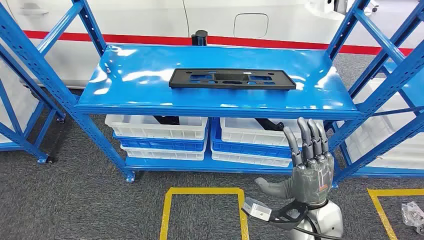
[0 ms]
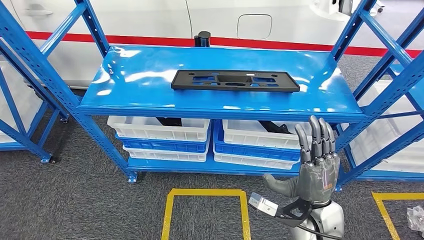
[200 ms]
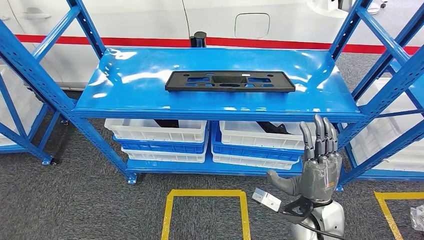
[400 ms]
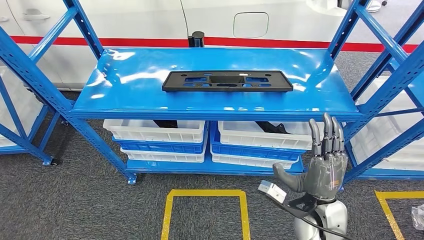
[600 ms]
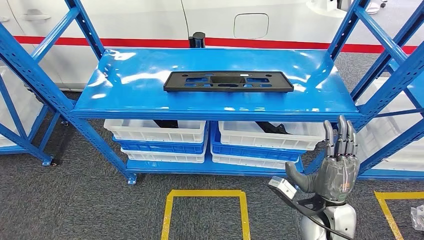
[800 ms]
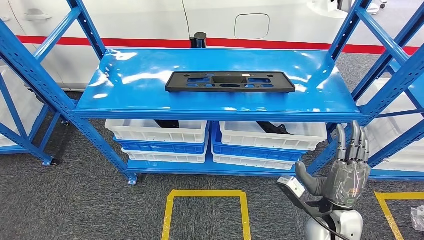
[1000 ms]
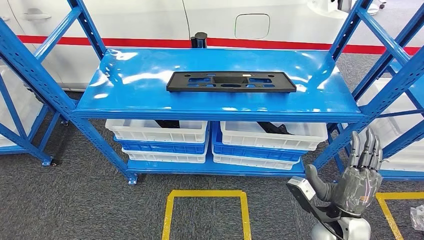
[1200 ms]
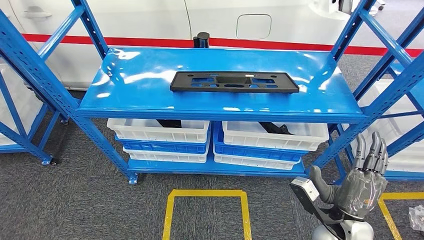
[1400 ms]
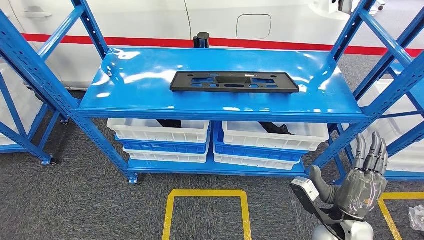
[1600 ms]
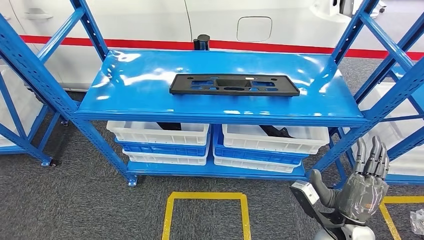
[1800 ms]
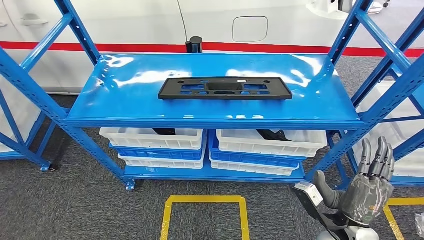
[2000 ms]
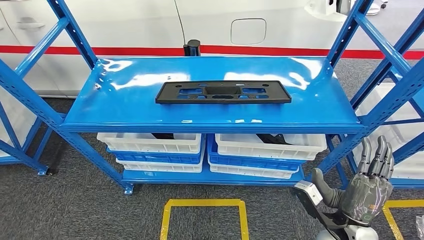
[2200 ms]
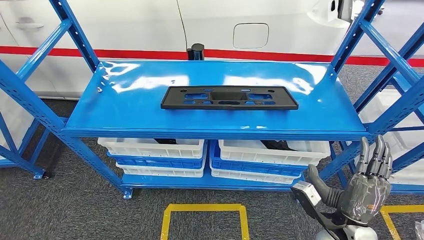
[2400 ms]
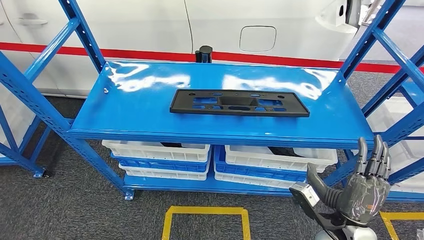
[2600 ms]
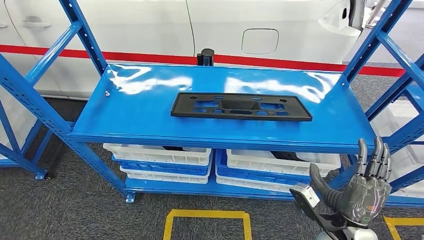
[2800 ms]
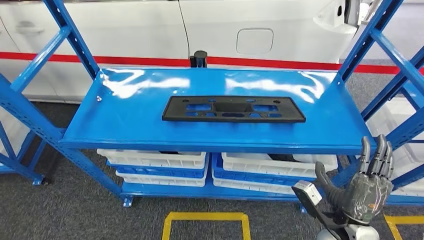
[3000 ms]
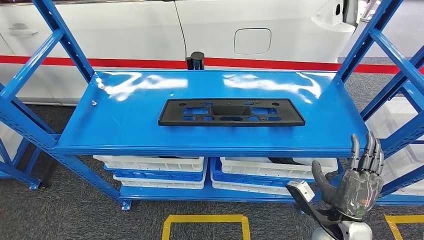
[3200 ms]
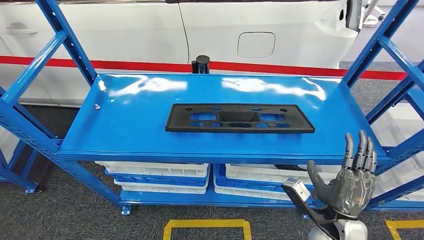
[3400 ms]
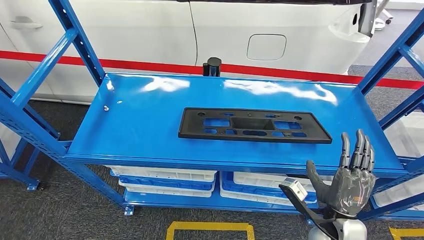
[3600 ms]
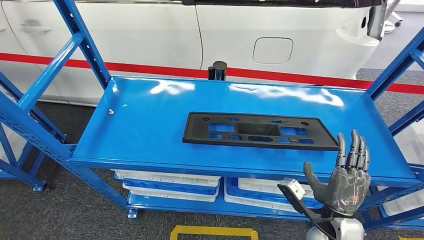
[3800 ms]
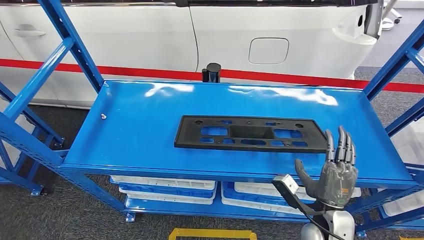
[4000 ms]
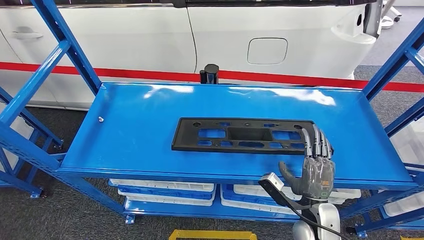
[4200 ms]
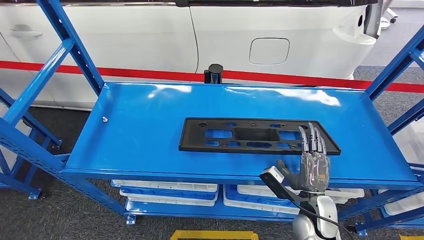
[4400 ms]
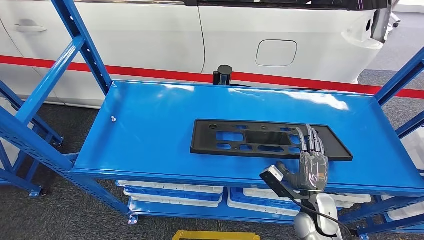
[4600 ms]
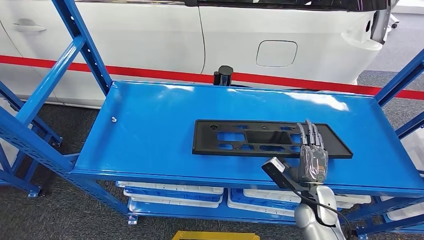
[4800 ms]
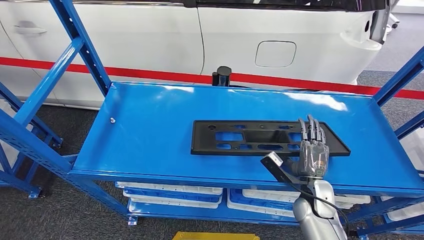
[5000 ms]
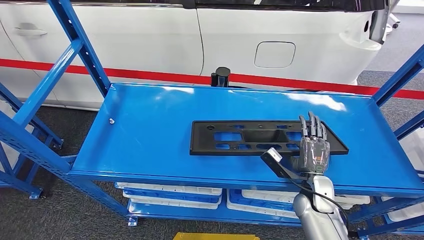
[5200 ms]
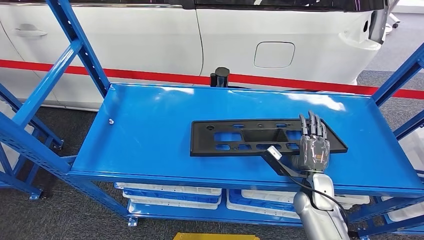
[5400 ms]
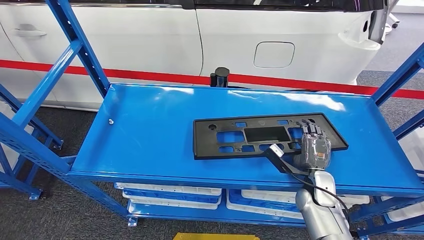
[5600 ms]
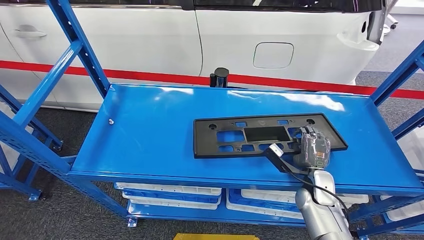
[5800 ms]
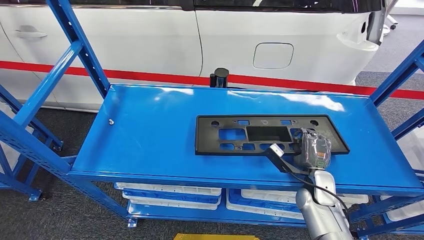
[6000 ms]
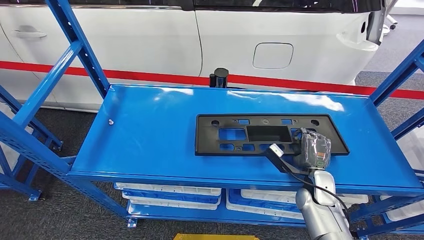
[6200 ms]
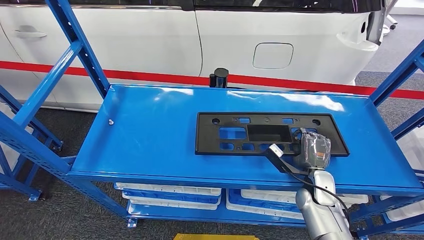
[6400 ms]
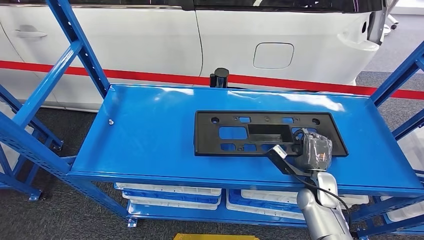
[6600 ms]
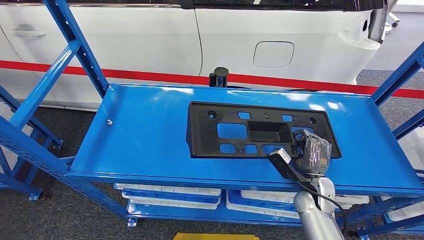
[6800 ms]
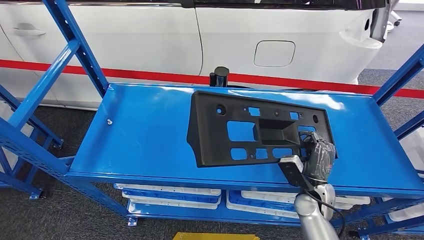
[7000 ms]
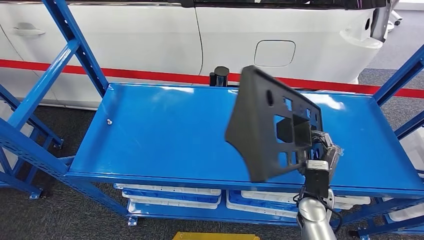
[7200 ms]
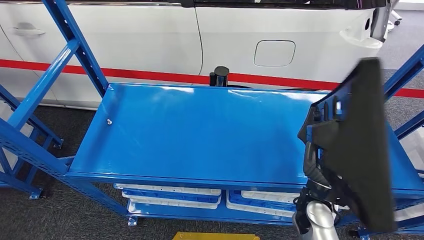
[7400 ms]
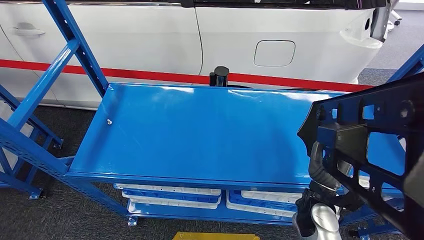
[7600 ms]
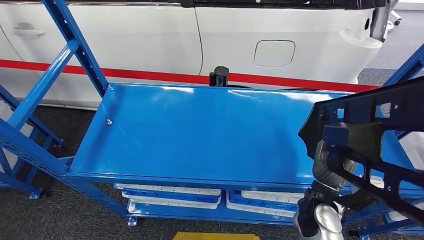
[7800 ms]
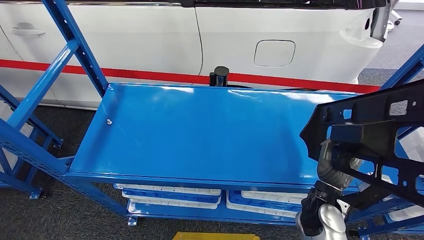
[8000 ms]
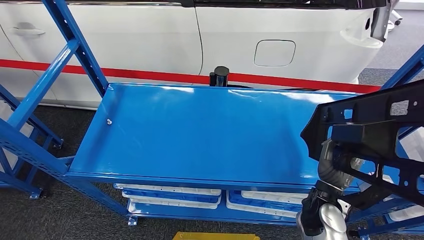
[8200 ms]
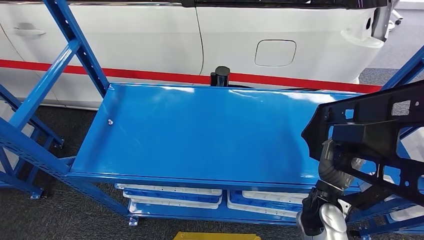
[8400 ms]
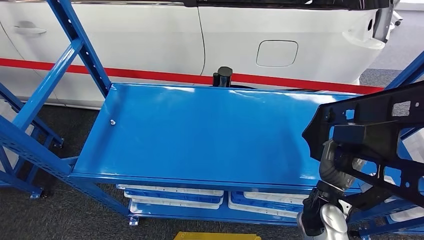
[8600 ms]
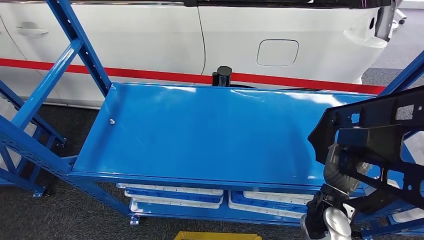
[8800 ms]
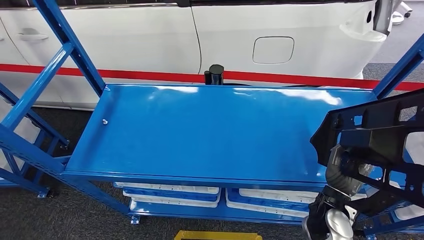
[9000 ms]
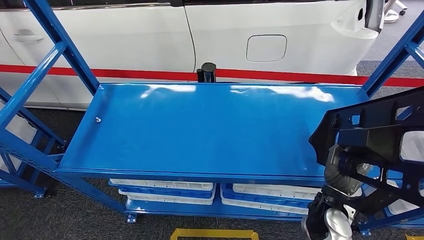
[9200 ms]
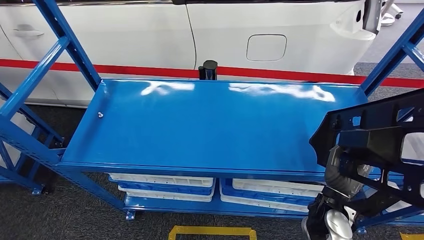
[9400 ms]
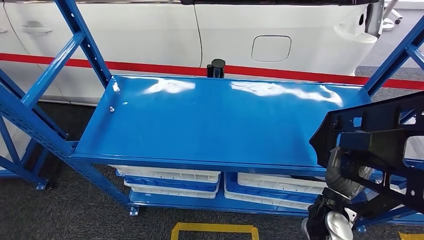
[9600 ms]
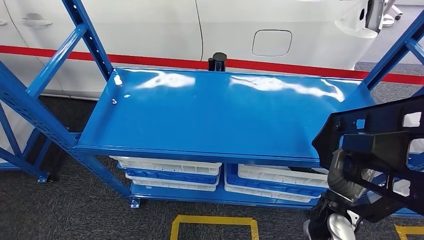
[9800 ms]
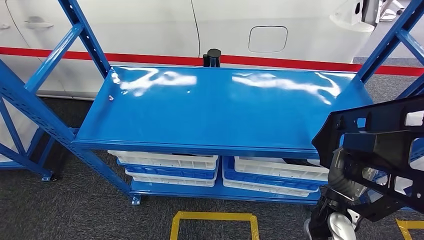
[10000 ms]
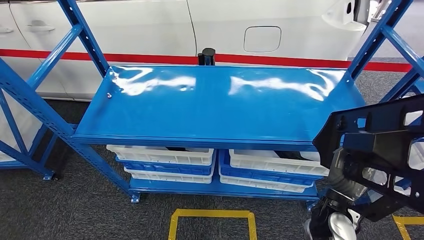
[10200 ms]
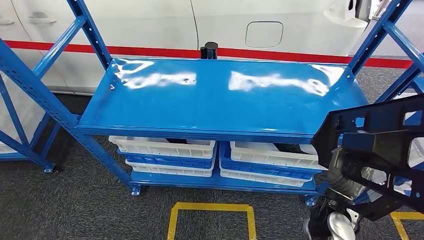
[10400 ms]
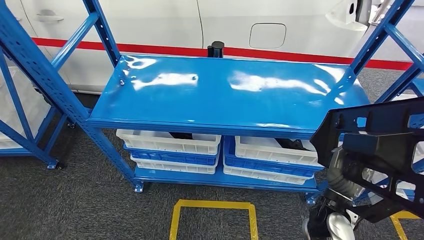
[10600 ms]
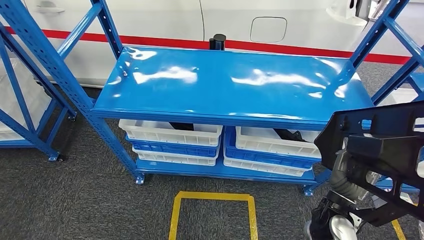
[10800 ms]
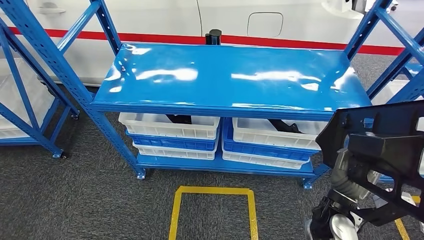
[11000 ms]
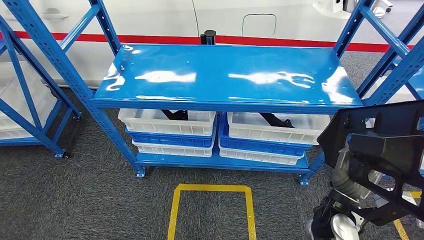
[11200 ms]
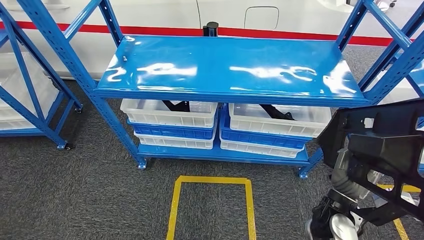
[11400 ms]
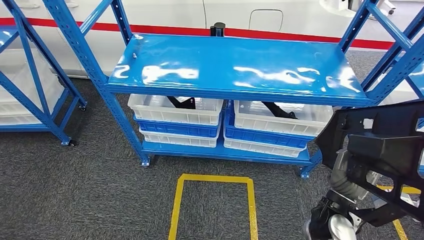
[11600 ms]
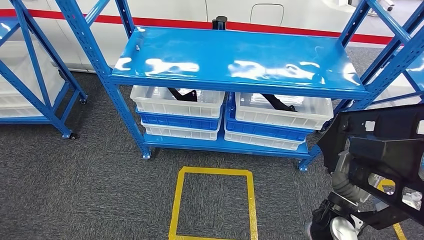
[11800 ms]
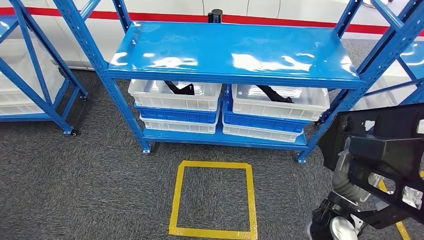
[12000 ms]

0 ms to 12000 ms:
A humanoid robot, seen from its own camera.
Step, 0 ms to 10600 ms: Pick up the large material from the shelf.

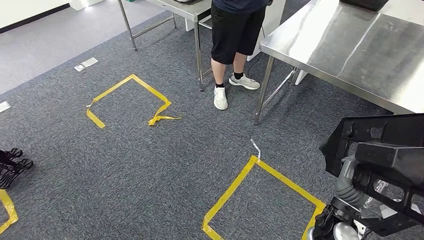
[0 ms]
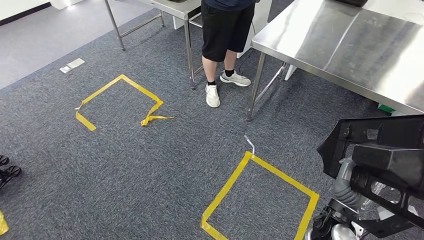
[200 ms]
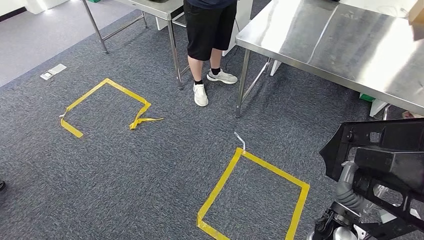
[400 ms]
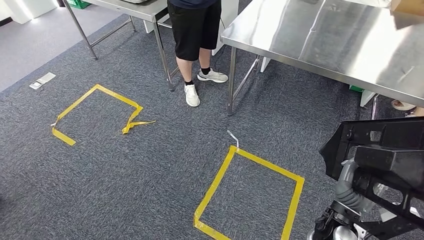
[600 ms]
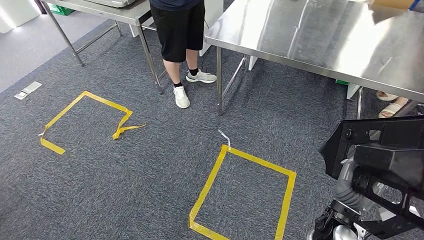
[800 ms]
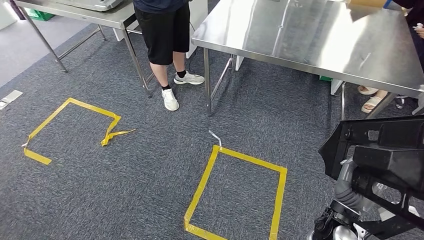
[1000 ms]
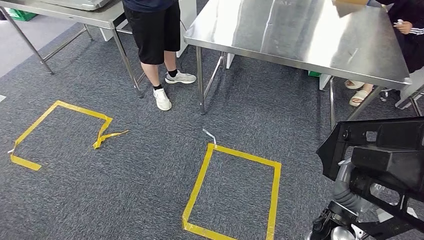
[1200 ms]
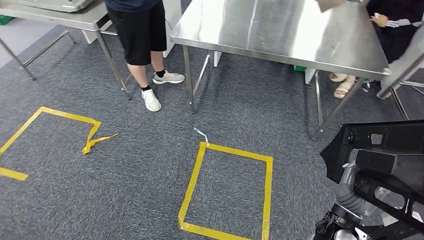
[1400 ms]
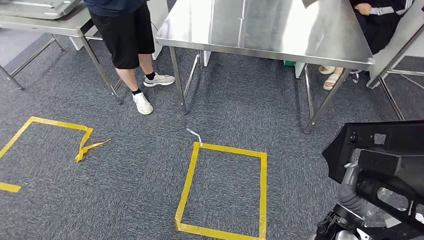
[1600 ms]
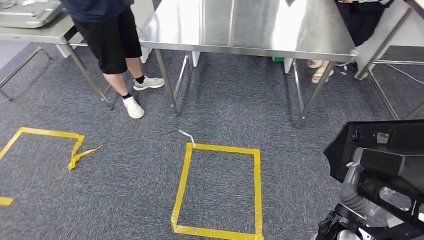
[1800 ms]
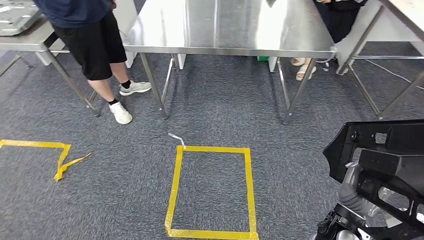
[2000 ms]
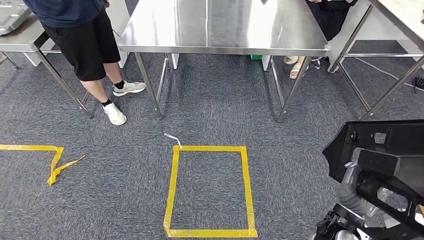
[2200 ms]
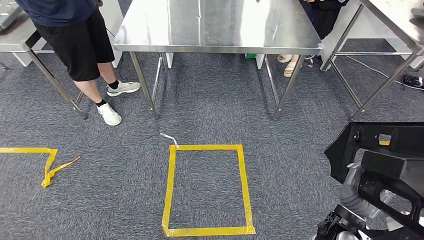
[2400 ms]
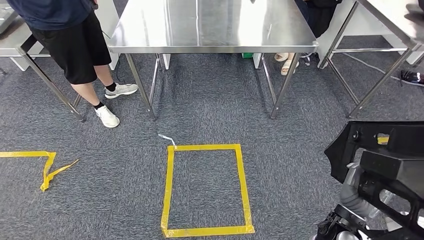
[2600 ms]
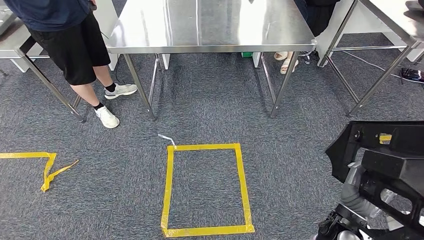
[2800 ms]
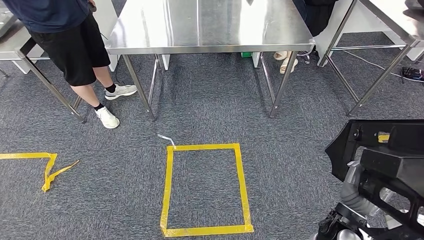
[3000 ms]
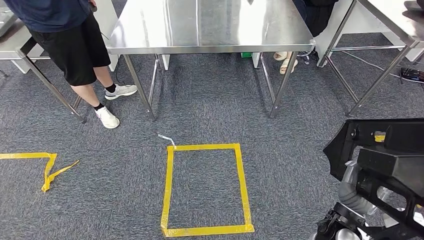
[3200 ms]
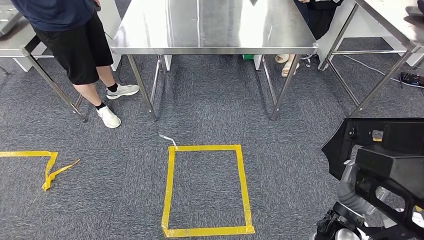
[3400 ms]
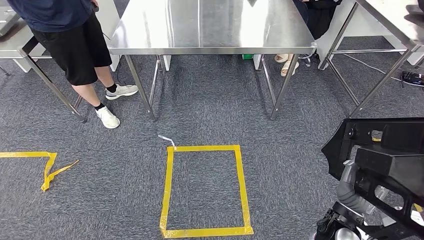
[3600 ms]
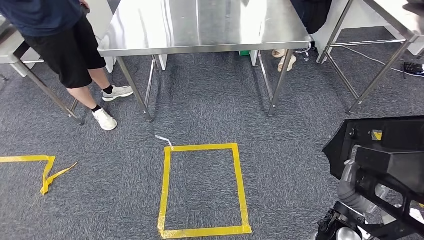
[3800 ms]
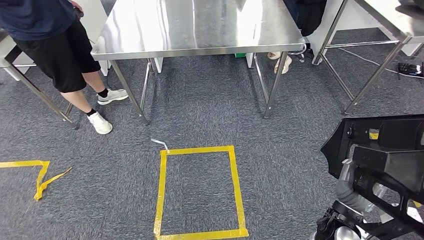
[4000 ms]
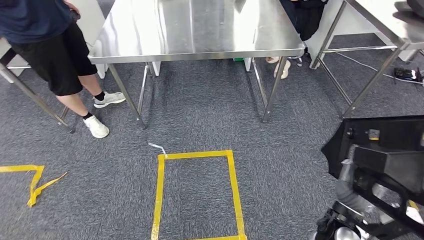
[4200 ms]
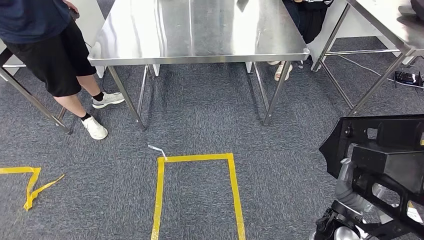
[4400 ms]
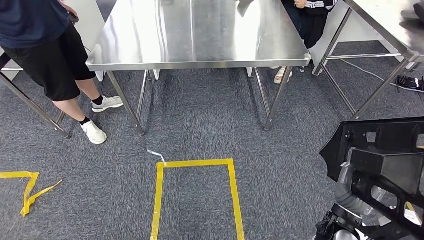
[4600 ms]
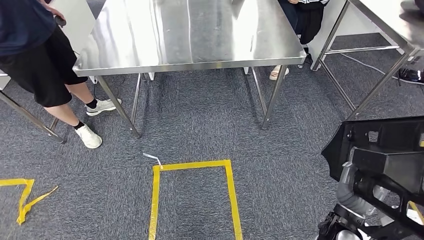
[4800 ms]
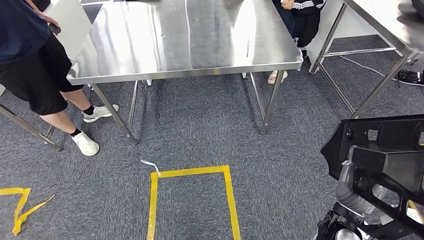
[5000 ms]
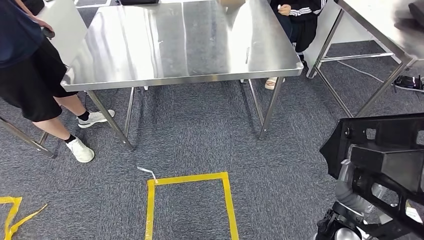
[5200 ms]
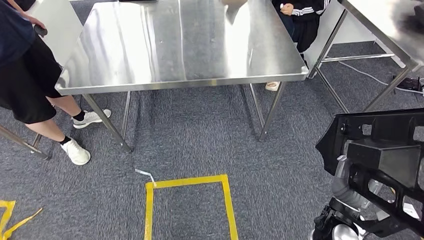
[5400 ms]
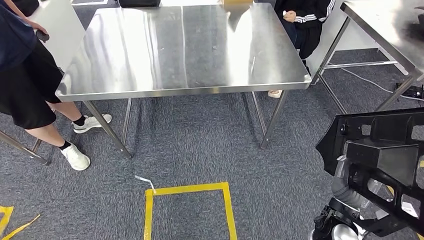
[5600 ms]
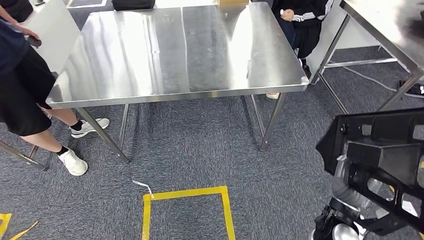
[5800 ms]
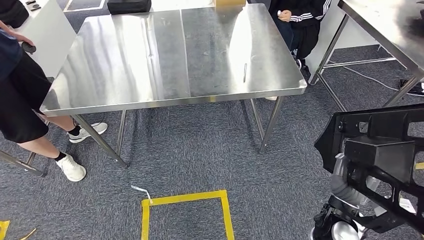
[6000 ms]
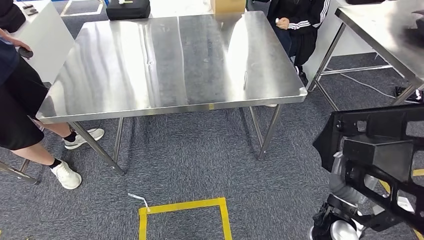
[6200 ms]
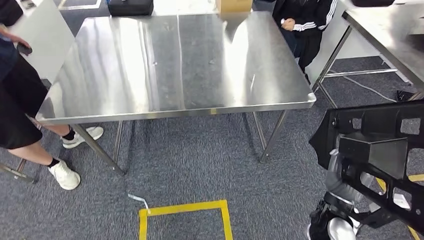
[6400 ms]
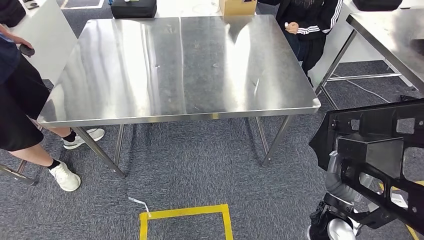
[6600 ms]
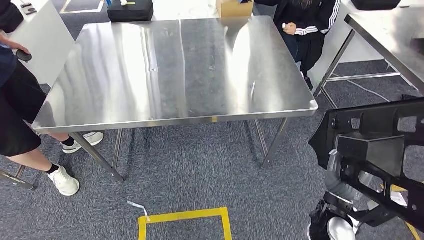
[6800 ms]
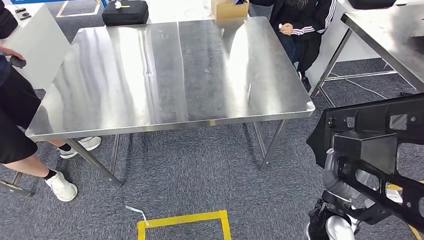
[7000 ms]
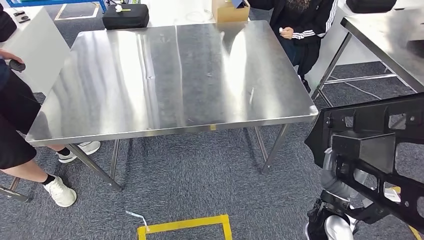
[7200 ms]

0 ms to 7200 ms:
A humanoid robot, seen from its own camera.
Step, 0 ms to 3800 ms: Move the large material to the workbench.
